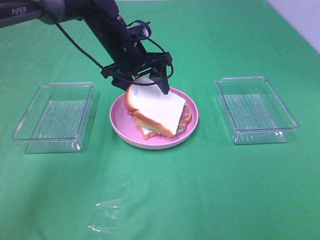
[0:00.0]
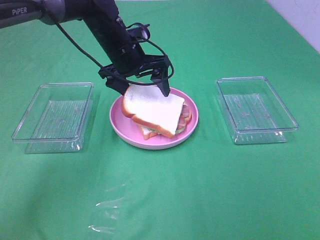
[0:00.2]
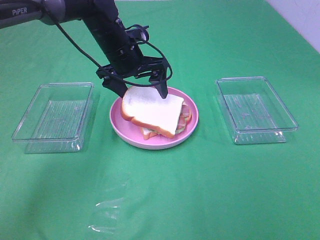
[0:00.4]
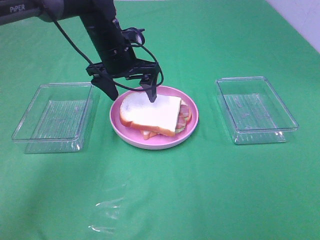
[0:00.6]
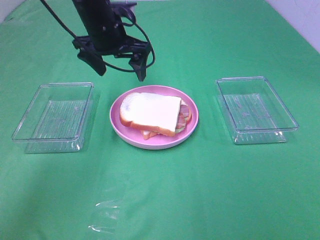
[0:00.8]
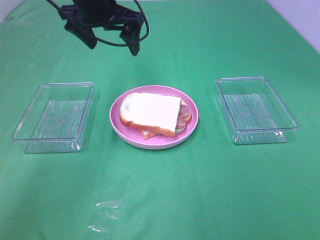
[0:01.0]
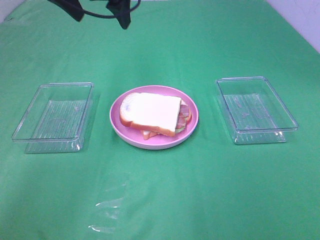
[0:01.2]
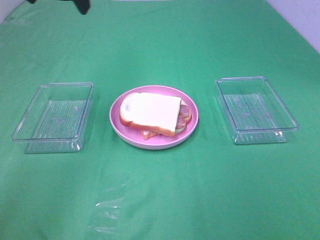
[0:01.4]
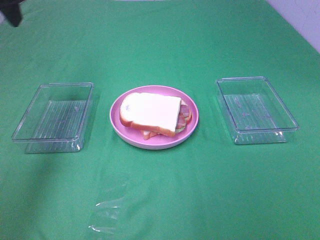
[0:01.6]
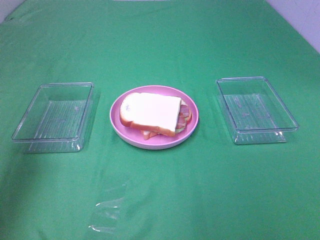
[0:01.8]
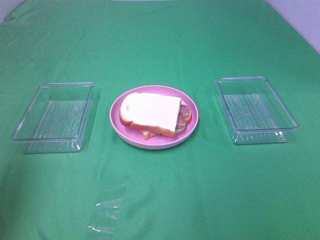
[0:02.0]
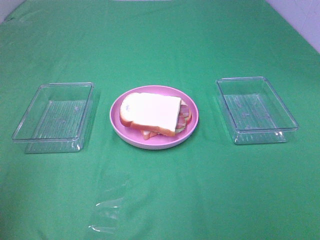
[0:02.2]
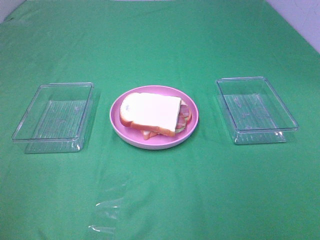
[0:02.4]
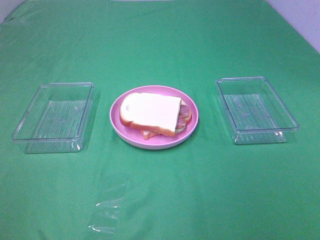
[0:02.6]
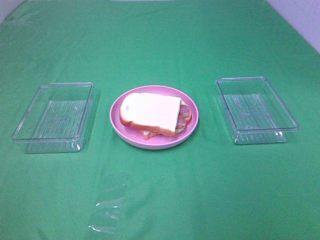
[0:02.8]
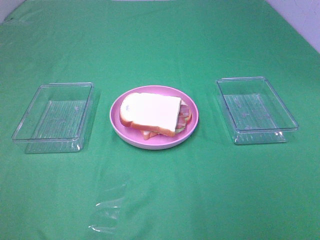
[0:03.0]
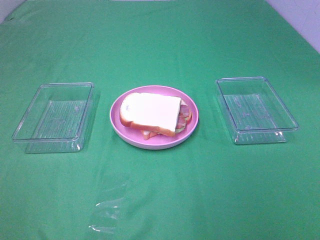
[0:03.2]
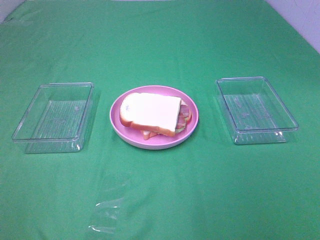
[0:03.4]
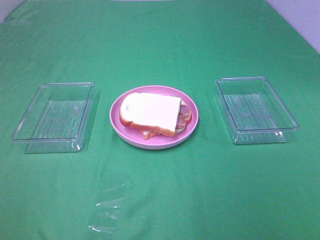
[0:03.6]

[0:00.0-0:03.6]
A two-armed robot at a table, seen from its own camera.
Task of the whole recording: Make sandwiches.
0:00.0 to 0:01.8: The left gripper shifts some 40 cm to the left, backward and upward.
0:01.8 to 0:03.6: The left gripper is displaced backward by approximately 25 cm.
